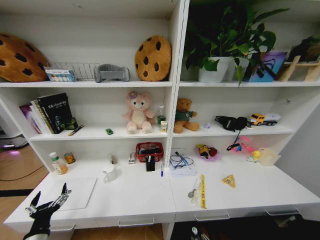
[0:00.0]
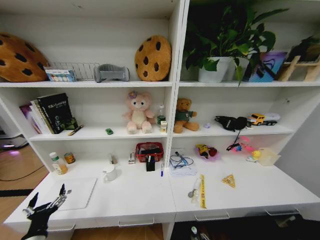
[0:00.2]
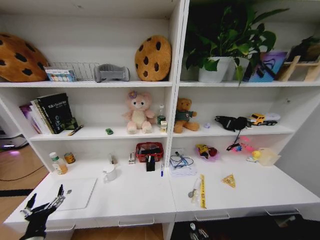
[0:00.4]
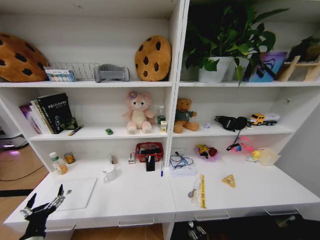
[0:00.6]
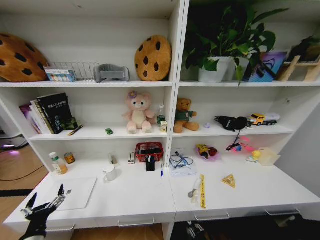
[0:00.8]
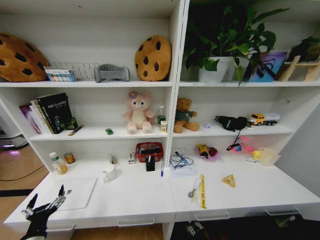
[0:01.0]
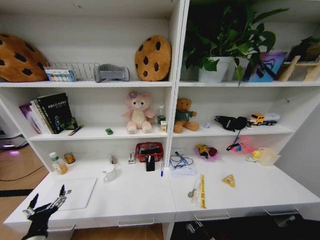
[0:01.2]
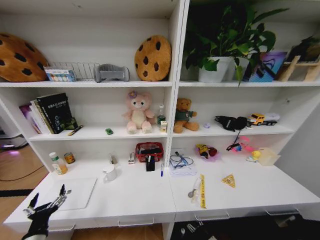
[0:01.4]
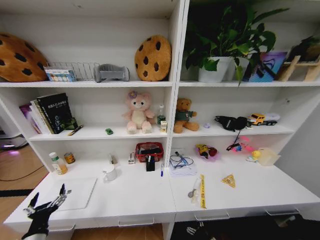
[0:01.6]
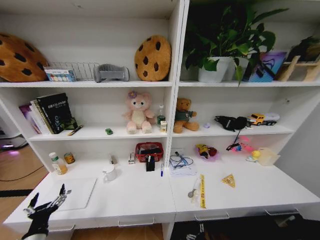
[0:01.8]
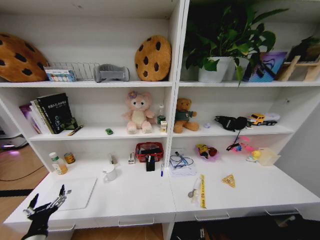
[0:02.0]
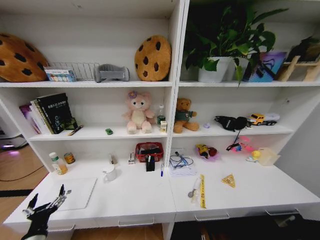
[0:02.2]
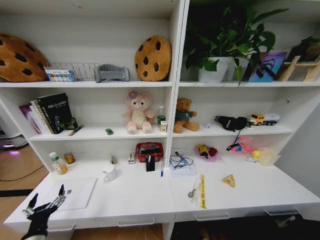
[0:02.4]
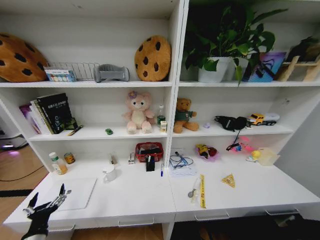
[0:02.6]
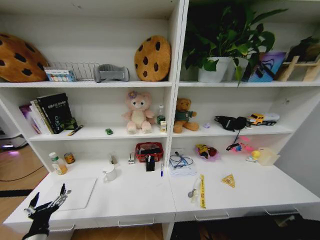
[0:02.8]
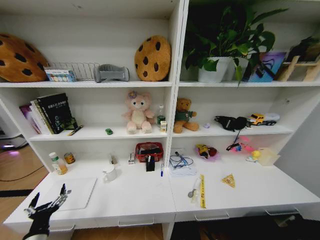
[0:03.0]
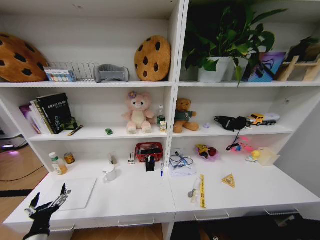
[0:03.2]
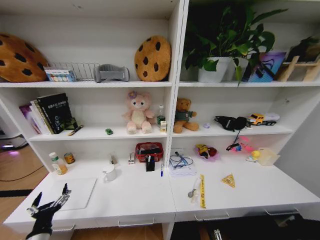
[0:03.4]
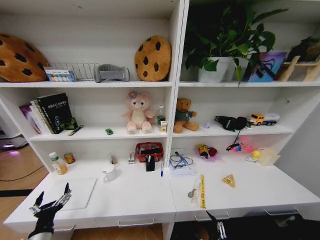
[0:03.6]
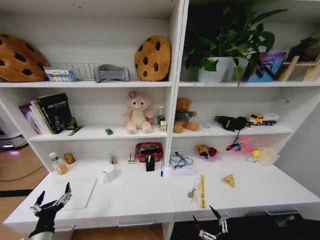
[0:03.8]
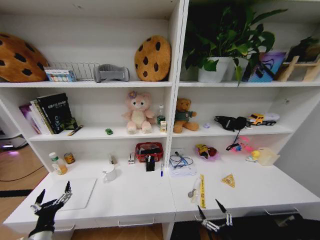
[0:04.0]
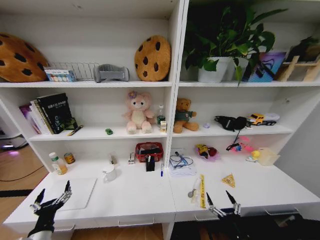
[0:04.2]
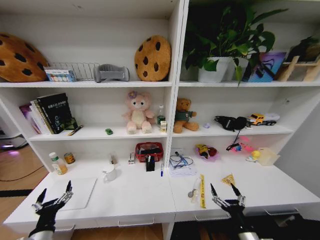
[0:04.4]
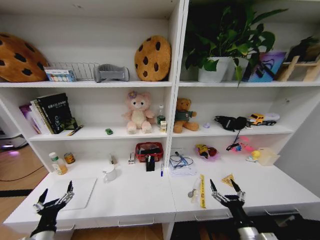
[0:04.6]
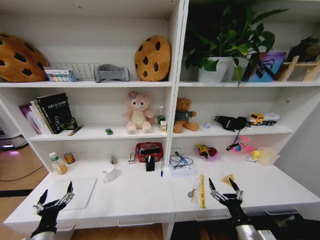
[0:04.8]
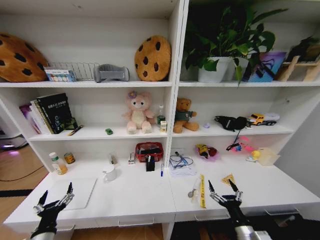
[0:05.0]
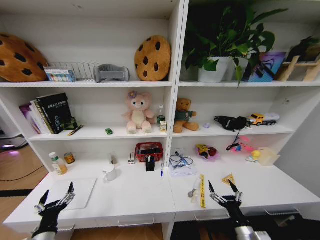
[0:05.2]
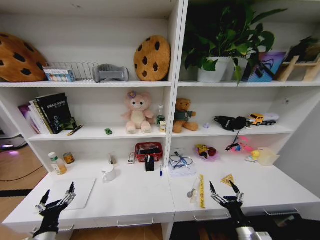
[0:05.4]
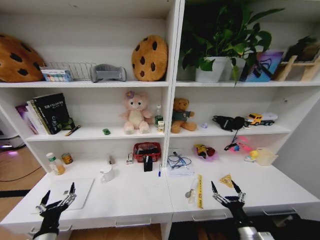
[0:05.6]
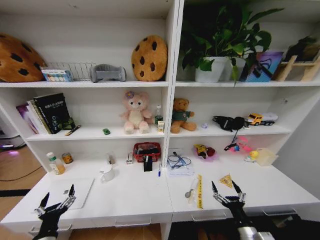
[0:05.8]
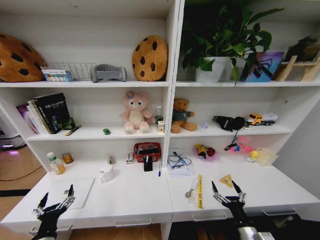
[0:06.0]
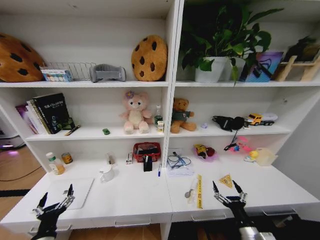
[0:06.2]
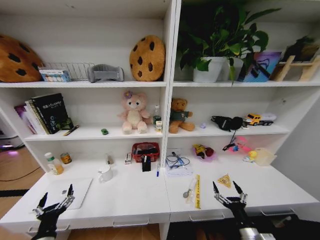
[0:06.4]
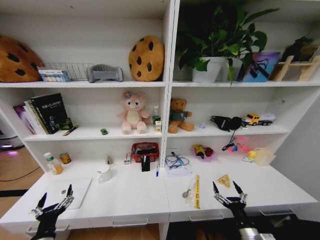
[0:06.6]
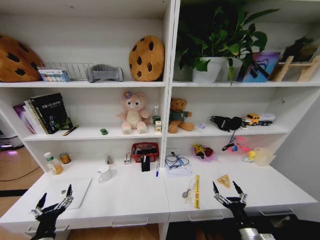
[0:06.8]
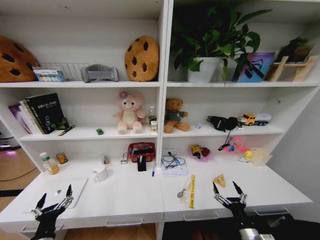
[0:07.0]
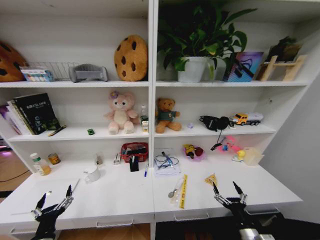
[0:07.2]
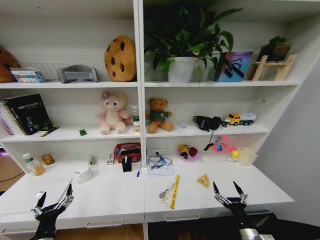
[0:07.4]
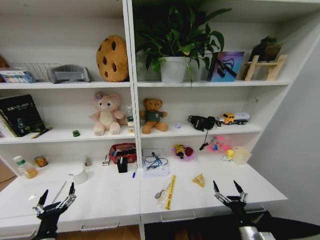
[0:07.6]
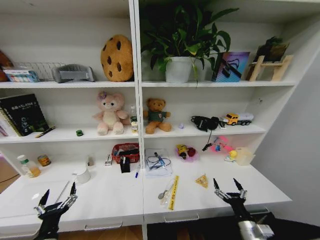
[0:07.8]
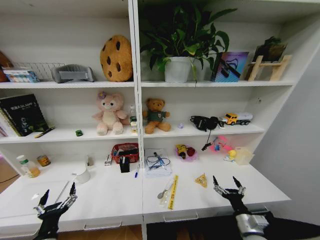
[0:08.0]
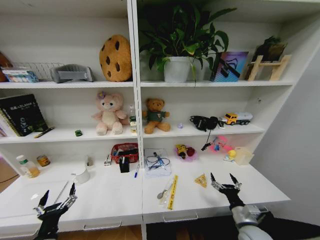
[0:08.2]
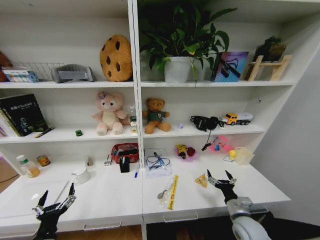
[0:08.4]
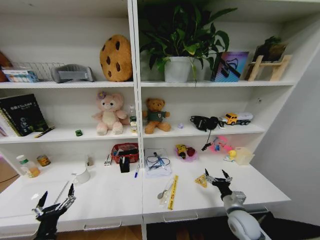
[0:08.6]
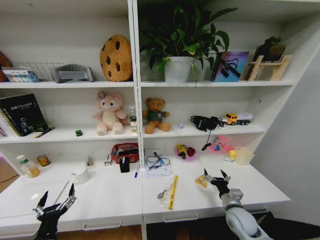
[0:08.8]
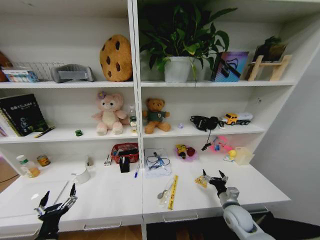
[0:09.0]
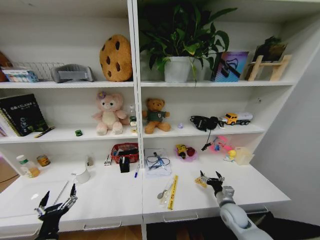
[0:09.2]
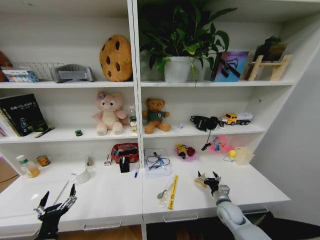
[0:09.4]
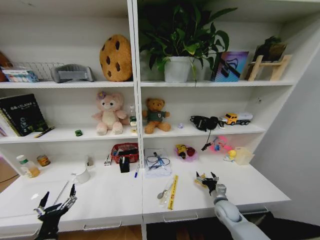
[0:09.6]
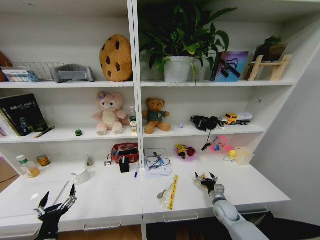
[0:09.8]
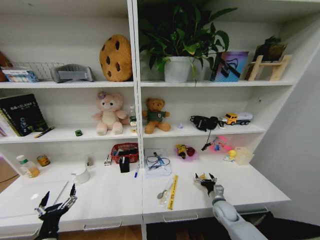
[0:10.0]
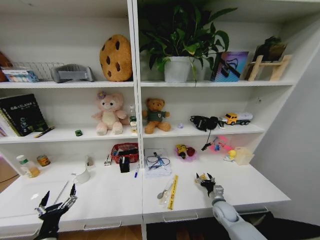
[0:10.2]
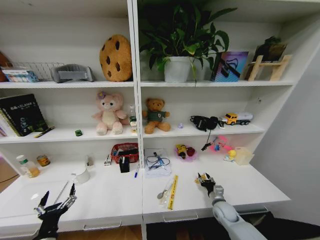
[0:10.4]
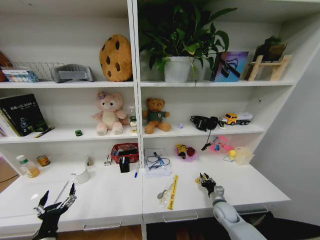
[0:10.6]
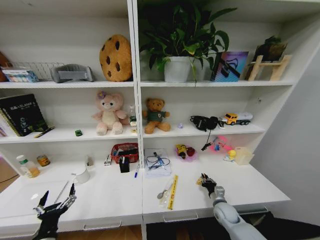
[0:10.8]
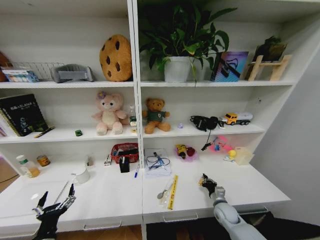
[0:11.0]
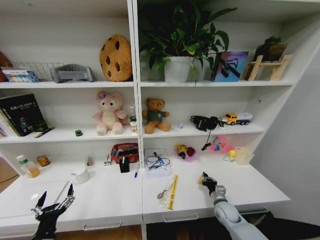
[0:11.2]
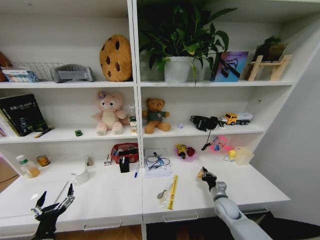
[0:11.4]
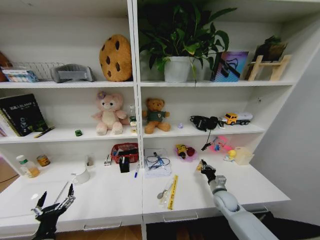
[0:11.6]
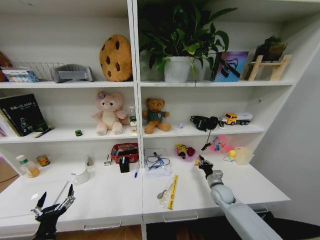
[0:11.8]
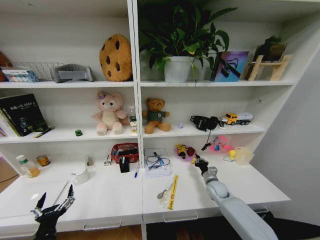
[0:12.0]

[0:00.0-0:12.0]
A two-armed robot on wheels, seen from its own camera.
Task of the whole recording: Organize the objects on the table.
0:03.0 to 0:04.4: The right gripper moves upward and forward, some 20 cm.
0:04.4 to 0:06.0: The grippers make only small movements.
0:07.6 to 0:09.0: The right gripper is displaced forward by some 15 cm.
0:09.0 to 0:10.4: The right gripper is displaced downward by approximately 5 cm, and closes up.
0:10.4 to 0:12.0: The right gripper travels forward by approximately 10 cm, and closes.

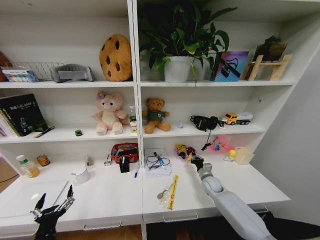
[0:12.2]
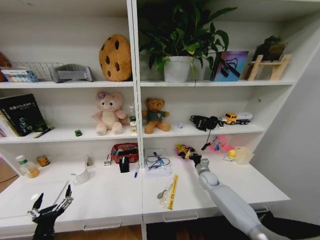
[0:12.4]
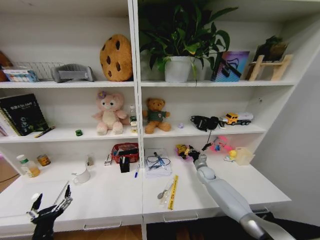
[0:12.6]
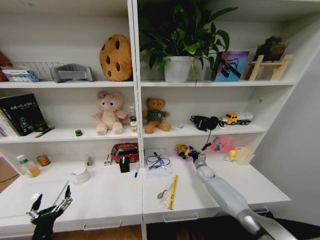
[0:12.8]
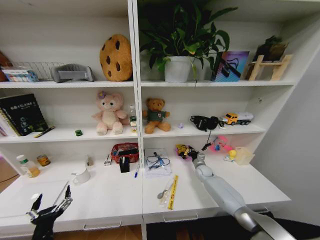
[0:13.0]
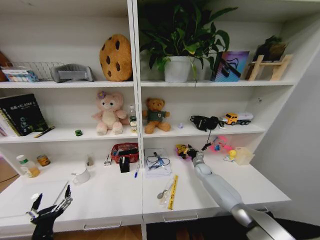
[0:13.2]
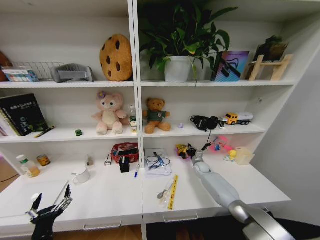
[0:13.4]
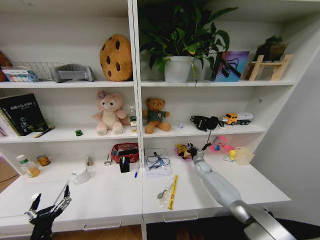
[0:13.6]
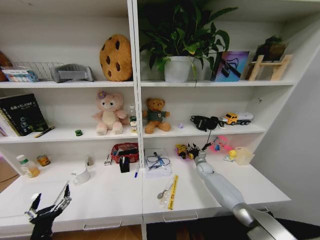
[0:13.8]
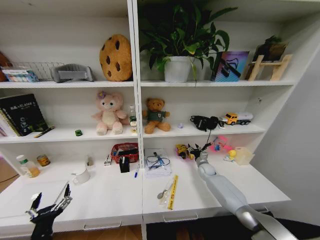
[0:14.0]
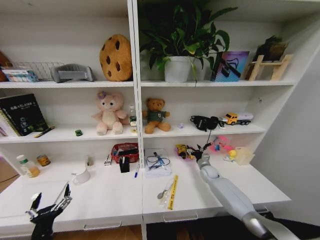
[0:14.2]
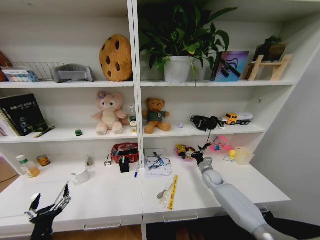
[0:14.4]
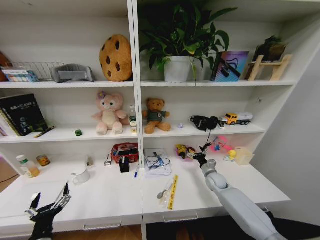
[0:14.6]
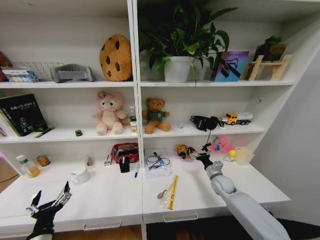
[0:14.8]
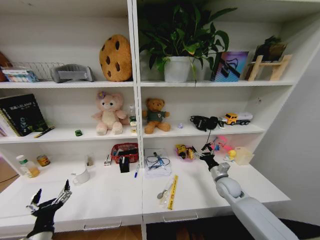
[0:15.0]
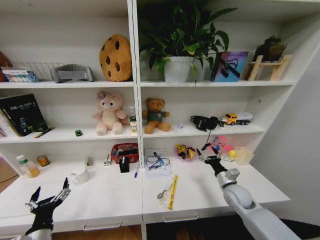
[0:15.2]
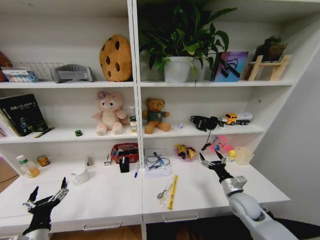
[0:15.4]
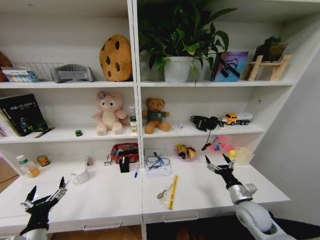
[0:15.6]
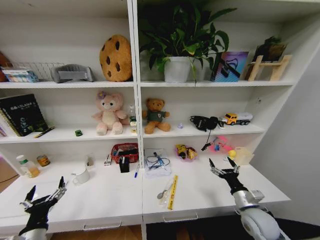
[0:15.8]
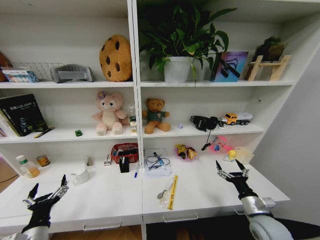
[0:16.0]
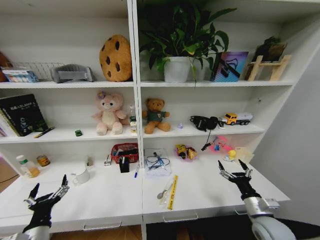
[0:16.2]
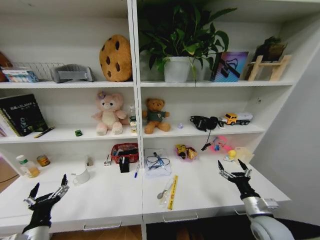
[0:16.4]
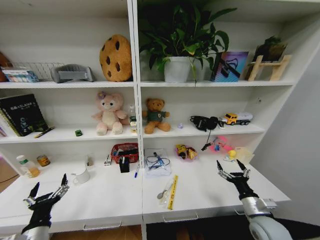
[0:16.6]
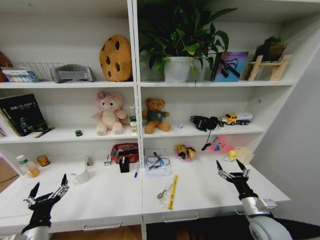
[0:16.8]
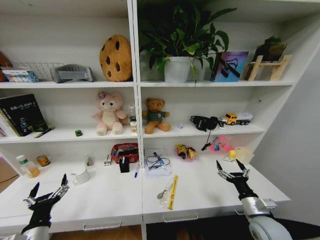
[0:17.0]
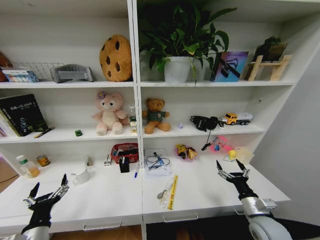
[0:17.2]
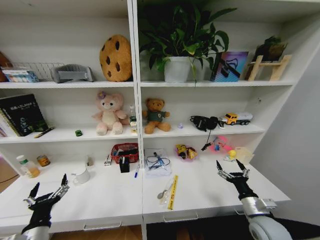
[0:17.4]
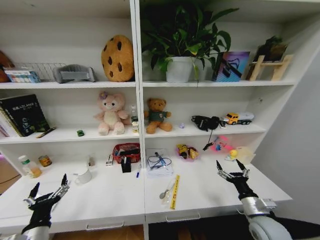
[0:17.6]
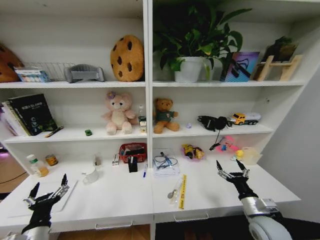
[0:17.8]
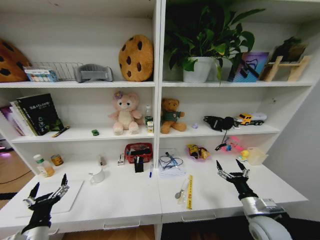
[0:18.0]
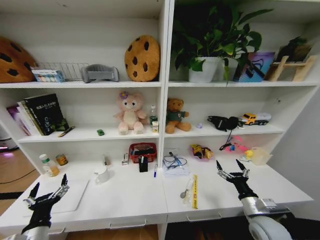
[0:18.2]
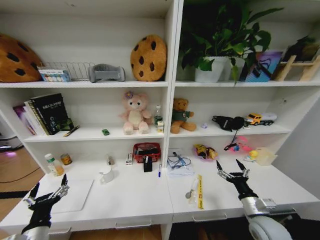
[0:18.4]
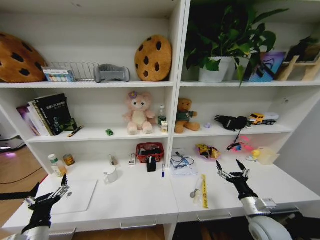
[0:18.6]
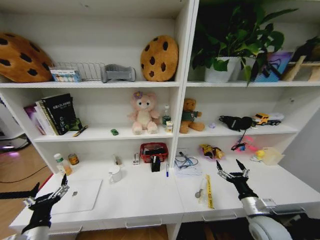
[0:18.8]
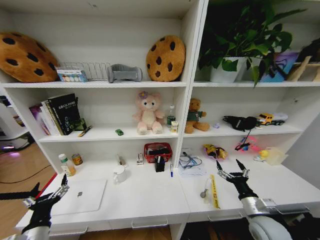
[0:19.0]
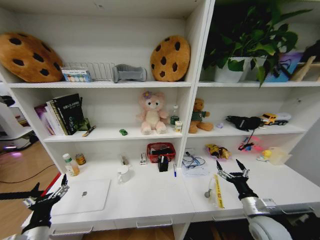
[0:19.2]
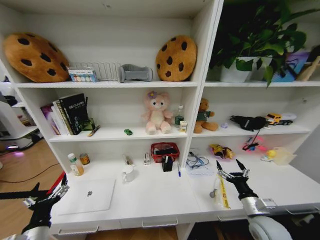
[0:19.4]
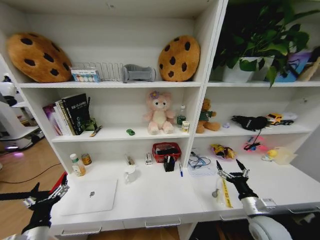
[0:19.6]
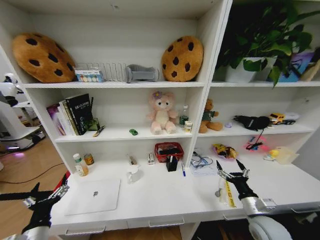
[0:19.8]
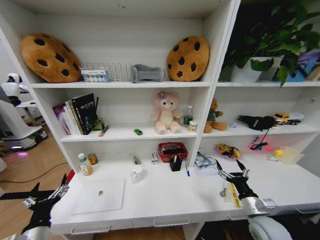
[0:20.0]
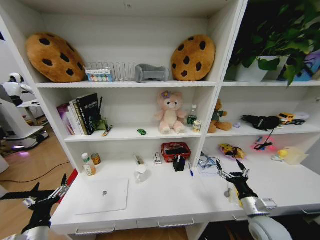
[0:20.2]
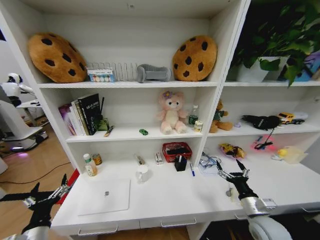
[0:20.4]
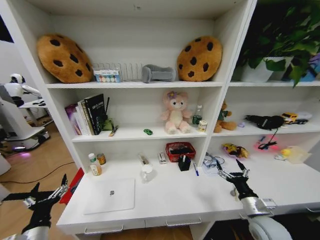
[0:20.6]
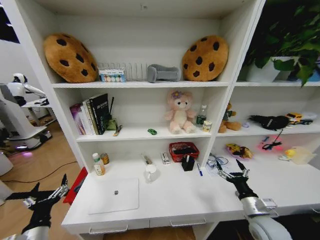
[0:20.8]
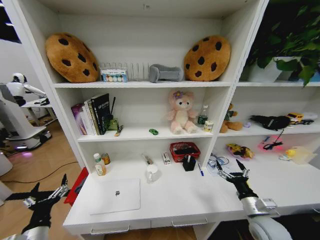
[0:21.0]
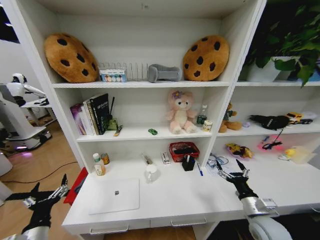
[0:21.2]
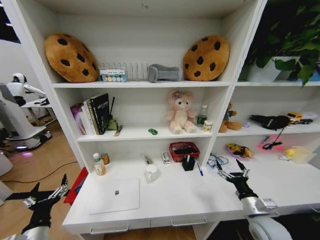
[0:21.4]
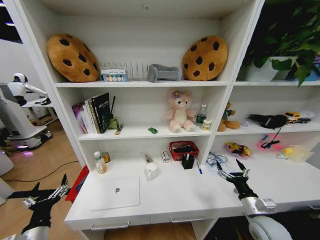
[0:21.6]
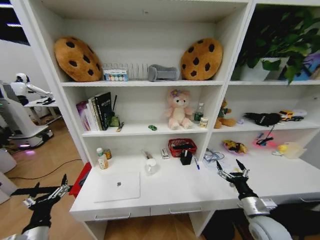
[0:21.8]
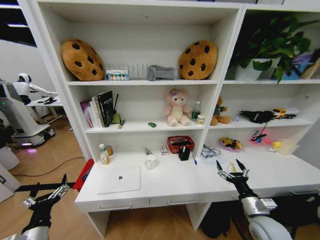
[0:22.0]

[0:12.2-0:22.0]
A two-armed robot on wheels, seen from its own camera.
Task of the whole recording: Organize the objects on the table.
0:12.2 to 0:13.6: The right gripper shifts some 15 cm forward.
0:13.6 to 0:15.0: The right gripper travels backward and upward by approximately 15 cm, and opens up.
0:15.0 to 0:16.4: The right gripper travels backward by about 15 cm.

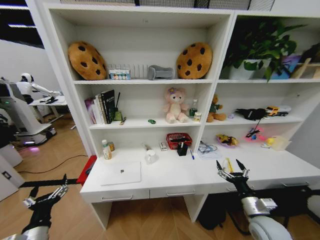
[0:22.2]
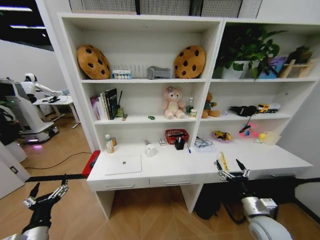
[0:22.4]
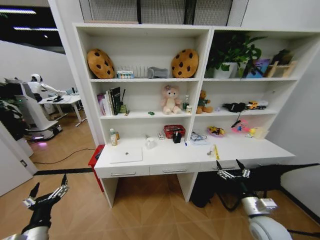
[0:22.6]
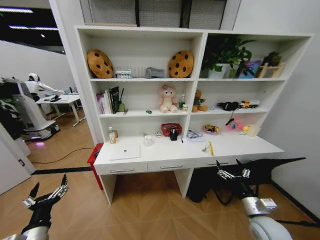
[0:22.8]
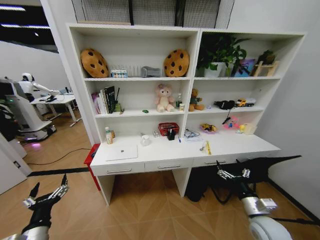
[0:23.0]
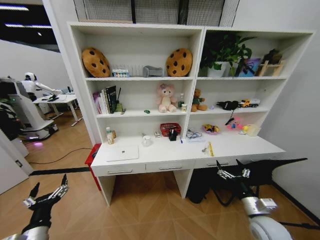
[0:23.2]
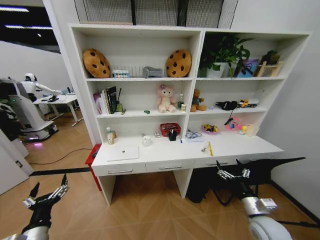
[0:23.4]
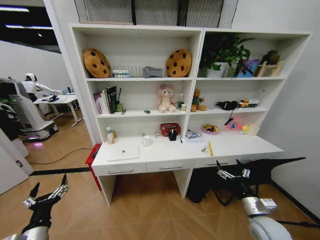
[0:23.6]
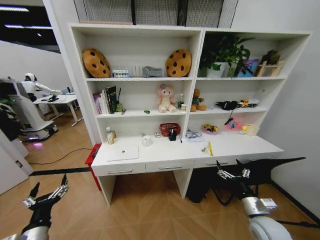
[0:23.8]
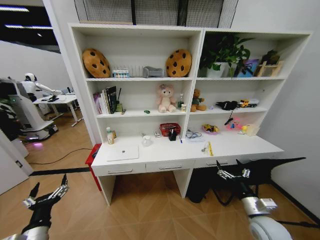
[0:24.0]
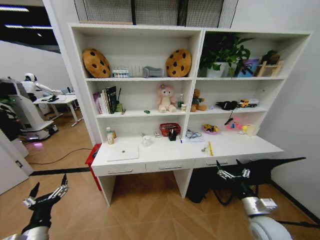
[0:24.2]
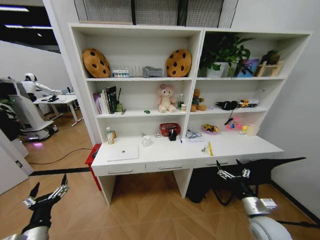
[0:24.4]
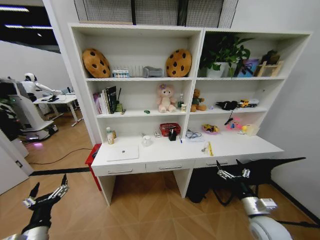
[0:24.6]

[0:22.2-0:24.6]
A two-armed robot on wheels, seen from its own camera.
Task of the whole recording: Organize the objects on the table.
0:23.4 to 0:24.6: Neither gripper changes place.
